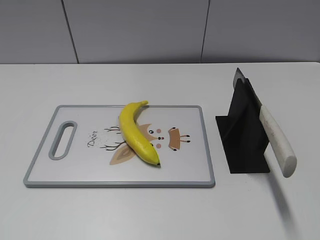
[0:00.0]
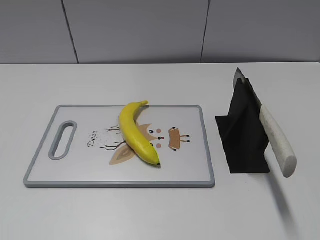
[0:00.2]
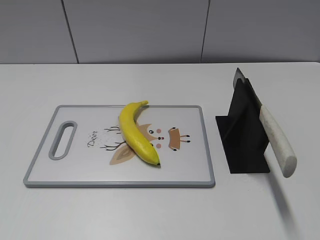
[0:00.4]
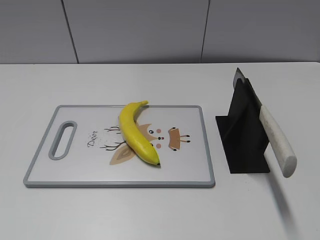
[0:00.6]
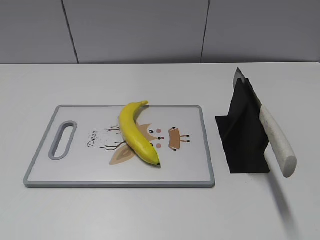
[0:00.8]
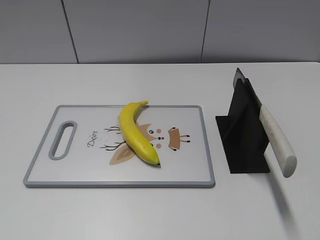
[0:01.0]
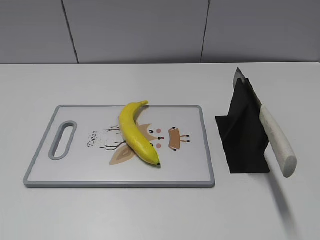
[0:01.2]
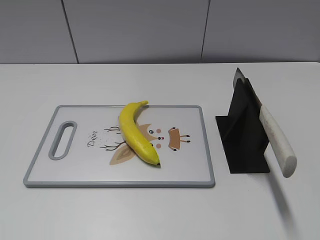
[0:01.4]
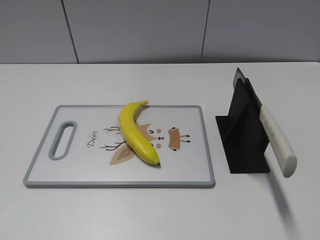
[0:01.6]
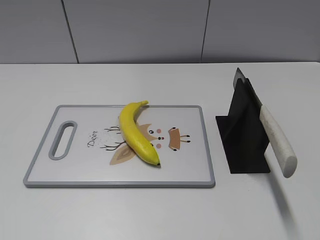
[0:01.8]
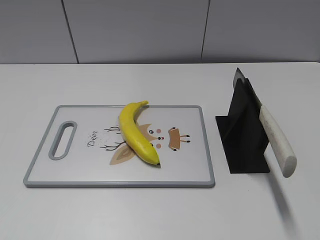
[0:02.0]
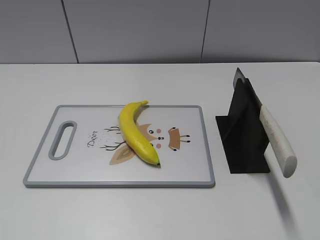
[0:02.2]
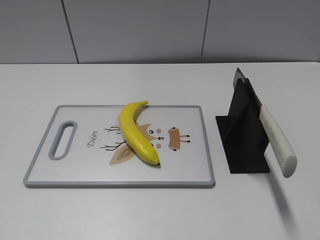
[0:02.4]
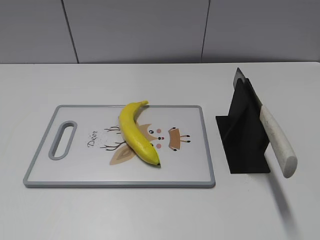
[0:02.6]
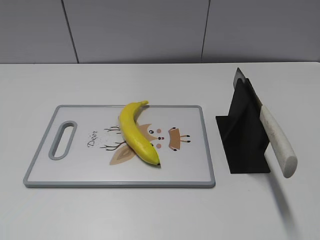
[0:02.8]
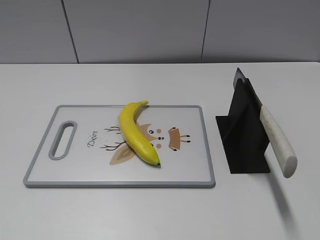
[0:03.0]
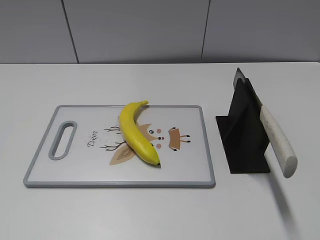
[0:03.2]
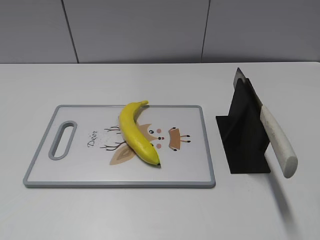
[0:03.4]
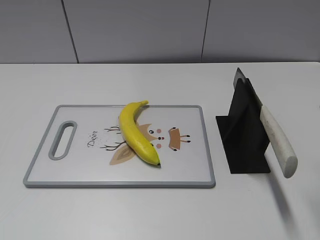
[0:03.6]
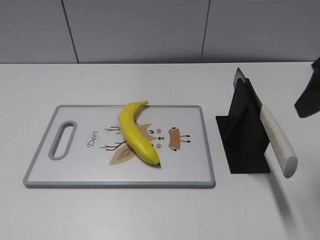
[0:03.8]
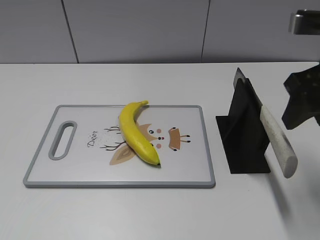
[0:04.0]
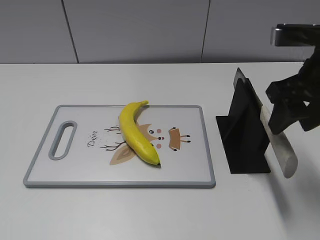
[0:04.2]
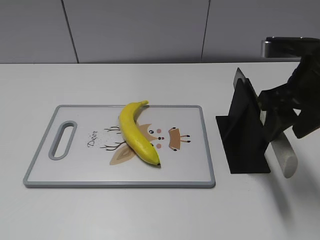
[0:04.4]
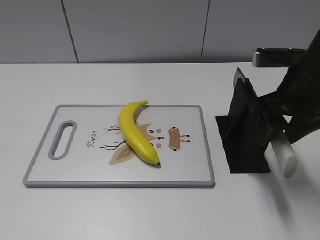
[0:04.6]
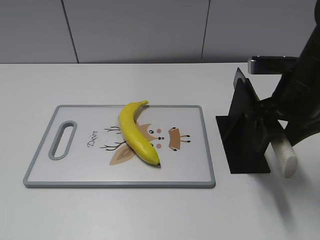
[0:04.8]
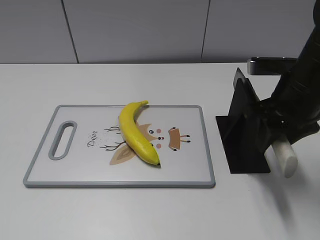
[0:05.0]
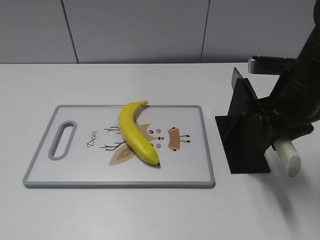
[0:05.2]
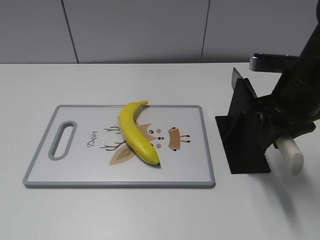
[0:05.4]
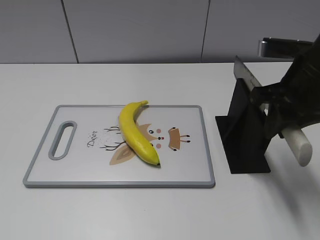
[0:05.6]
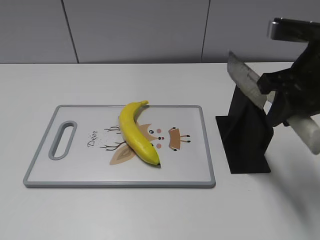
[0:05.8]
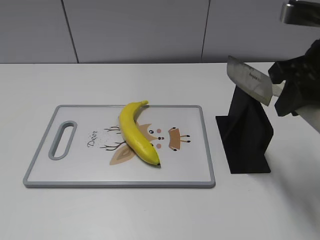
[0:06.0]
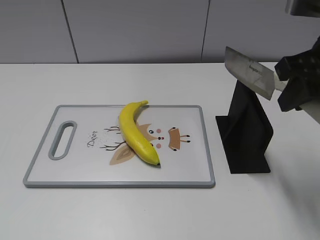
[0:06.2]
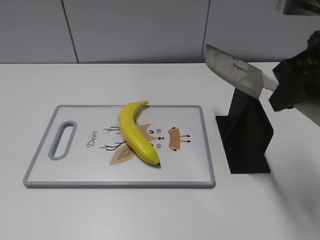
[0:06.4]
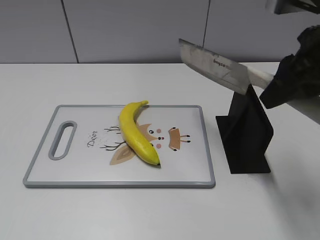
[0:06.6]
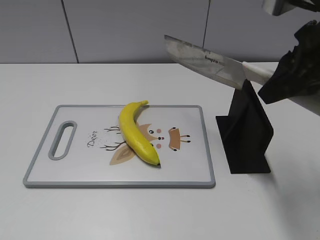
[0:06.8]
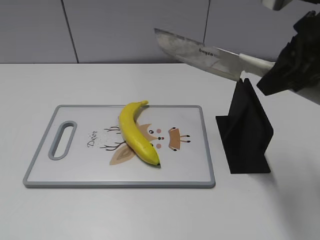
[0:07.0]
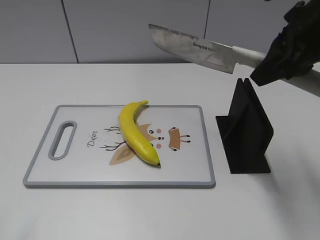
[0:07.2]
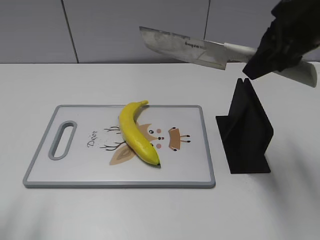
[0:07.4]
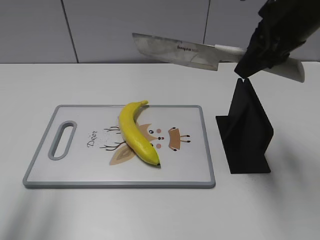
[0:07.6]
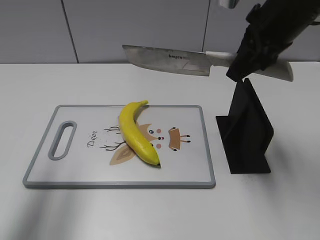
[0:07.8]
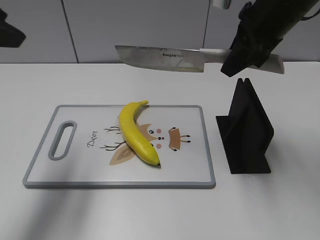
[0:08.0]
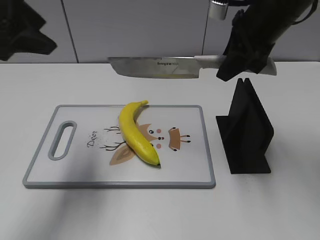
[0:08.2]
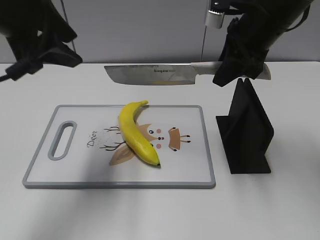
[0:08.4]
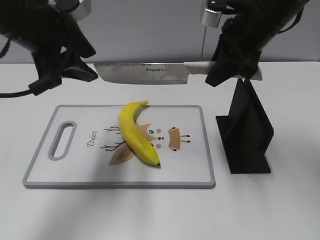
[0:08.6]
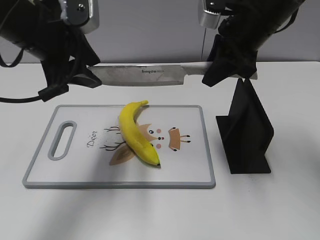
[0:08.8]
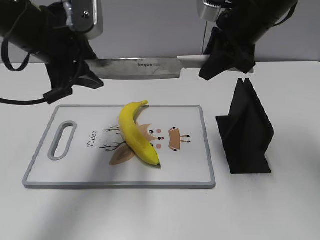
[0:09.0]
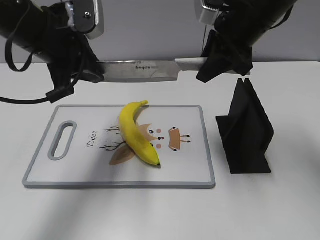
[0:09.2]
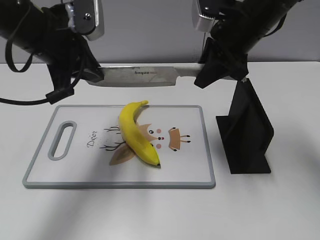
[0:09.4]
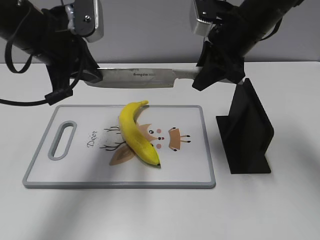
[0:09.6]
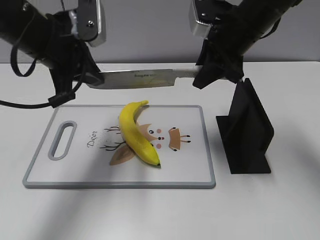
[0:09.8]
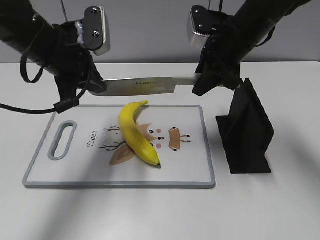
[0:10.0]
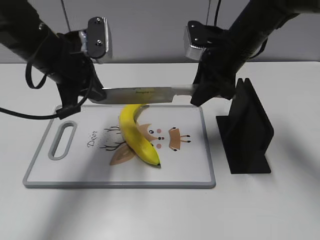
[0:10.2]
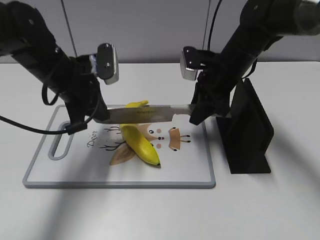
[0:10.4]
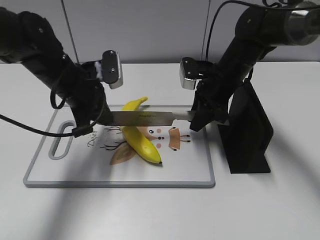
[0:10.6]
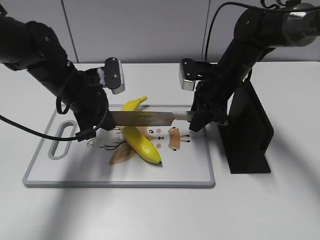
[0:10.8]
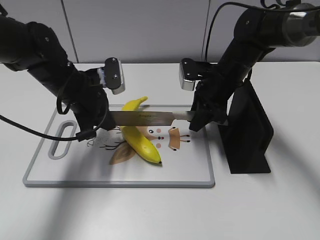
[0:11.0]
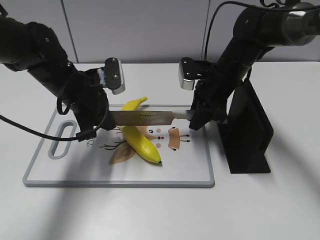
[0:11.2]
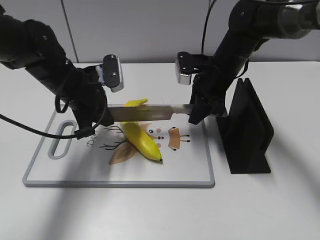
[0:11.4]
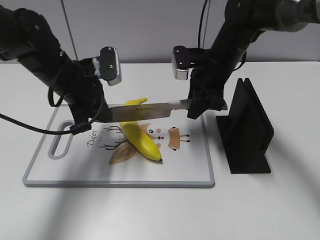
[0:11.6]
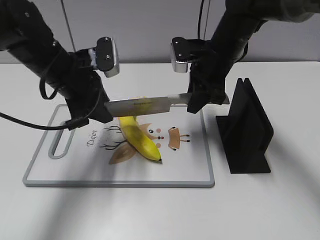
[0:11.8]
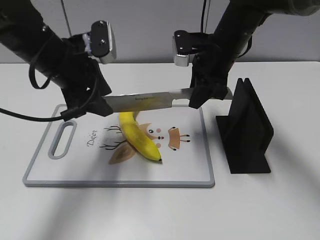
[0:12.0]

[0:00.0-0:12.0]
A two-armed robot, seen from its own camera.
Task of the whole recording: cut plastic banana.
Step, 0:00.0 to 0:06.2: Grab the knife handle with your right hand.
Step, 0:06.4 to 0:11.8: Lift the knife with your right hand.
0:03.0 to 0:04.4: The right gripper travels forward, downward and to the left by roughly 20 cm.
0:04.4 to 0:06.0: The right gripper closes up.
0:06.0 to 0:07.6: The right gripper travels forward by roughly 5 cm. The left gripper goes some 15 cm forward and upward.
0:07.6 to 0:09.0: The left gripper shifts some 20 cm forward, to the right and downward, while the right gripper is displaced forward by some 5 cm.
0:09.0 to 0:10.4: The grippers both shift downward by roughly 10 cm. The left gripper closes its fingers.
0:10.4 to 0:12.0: The left gripper opens.

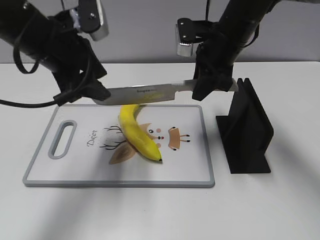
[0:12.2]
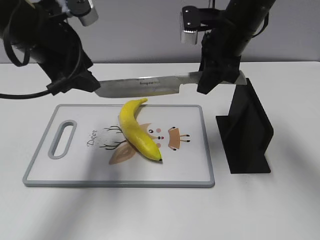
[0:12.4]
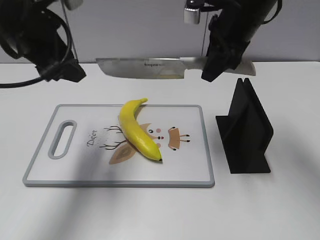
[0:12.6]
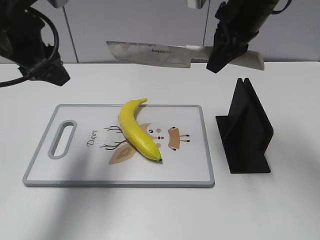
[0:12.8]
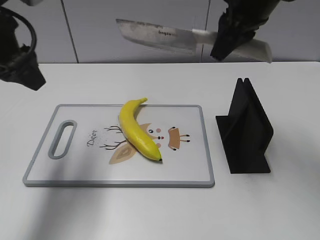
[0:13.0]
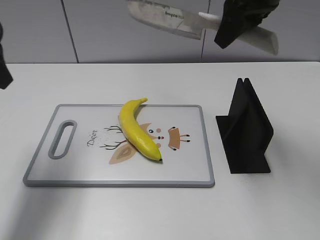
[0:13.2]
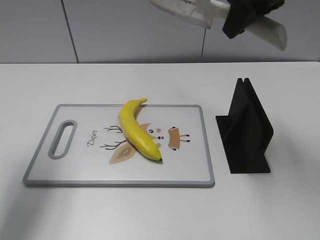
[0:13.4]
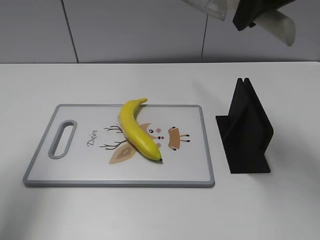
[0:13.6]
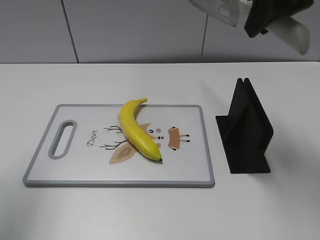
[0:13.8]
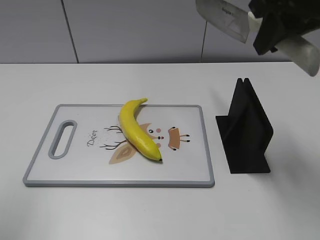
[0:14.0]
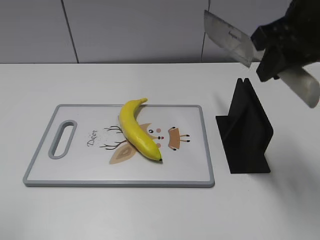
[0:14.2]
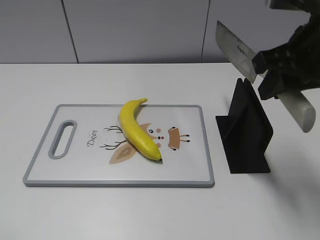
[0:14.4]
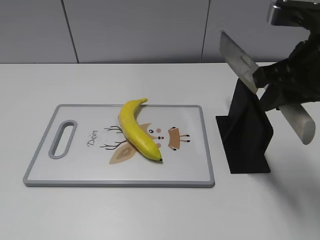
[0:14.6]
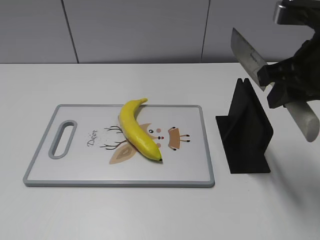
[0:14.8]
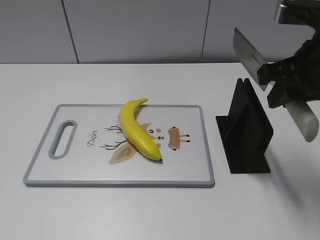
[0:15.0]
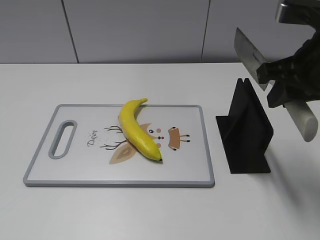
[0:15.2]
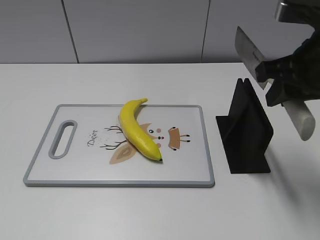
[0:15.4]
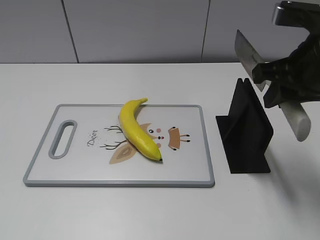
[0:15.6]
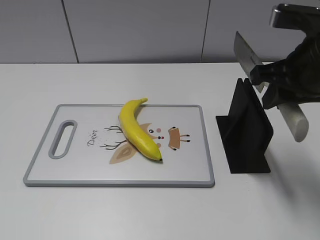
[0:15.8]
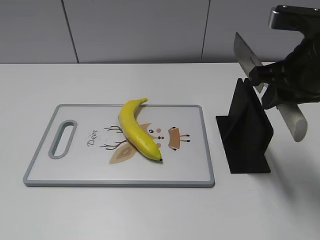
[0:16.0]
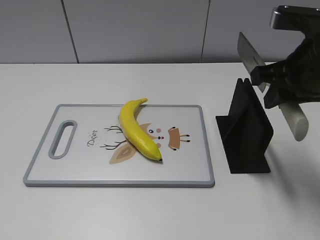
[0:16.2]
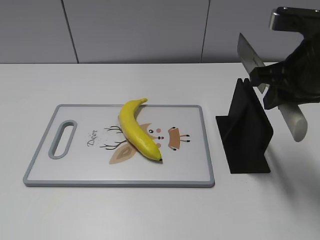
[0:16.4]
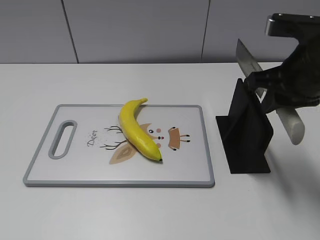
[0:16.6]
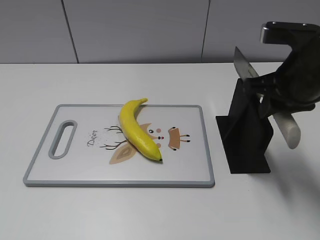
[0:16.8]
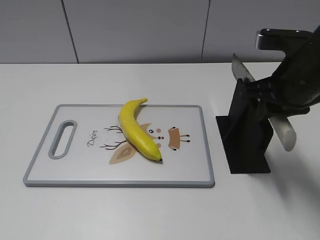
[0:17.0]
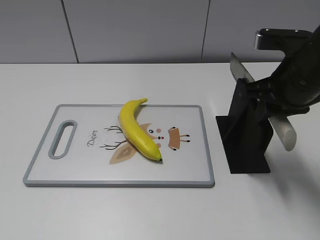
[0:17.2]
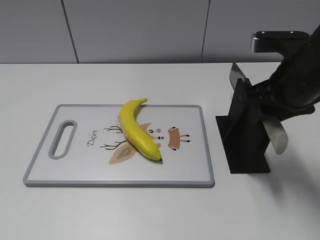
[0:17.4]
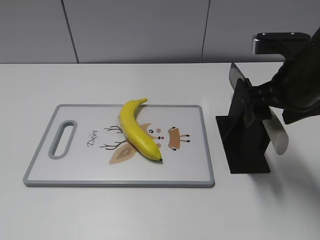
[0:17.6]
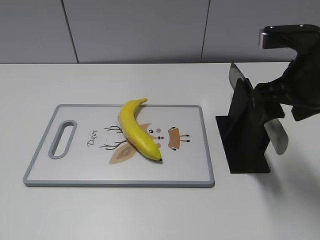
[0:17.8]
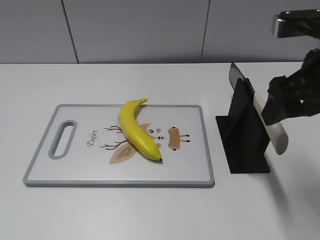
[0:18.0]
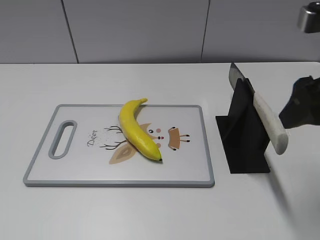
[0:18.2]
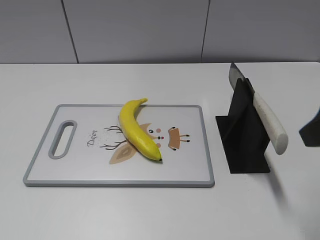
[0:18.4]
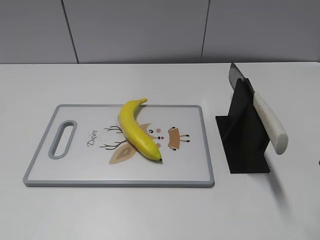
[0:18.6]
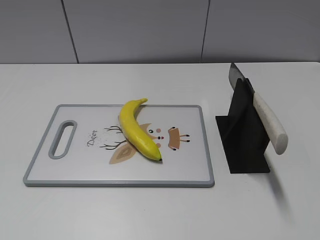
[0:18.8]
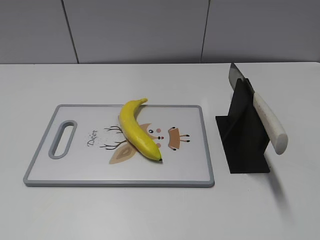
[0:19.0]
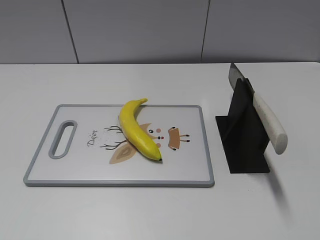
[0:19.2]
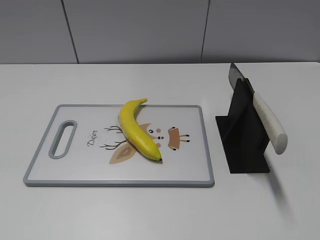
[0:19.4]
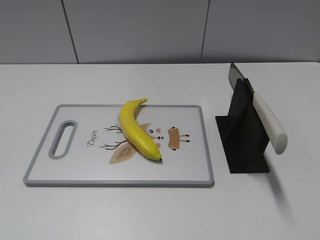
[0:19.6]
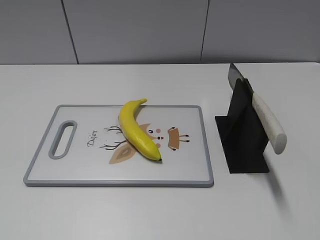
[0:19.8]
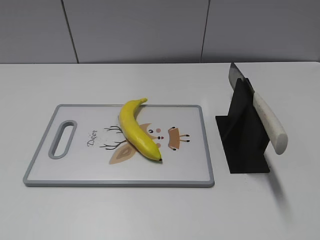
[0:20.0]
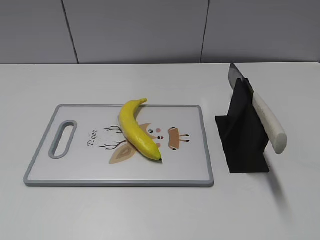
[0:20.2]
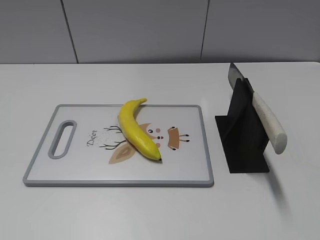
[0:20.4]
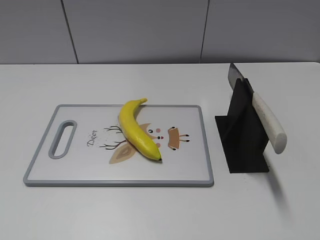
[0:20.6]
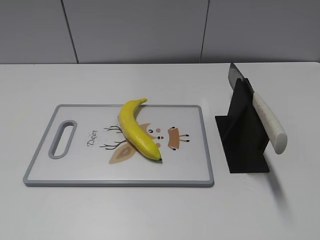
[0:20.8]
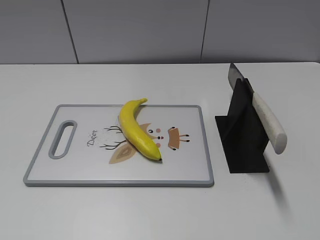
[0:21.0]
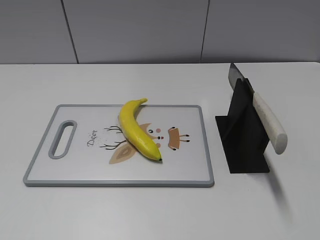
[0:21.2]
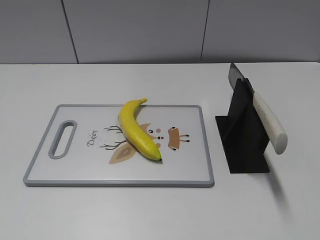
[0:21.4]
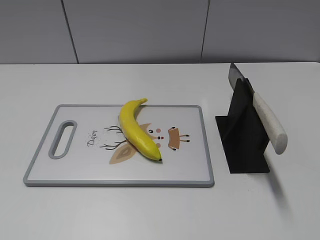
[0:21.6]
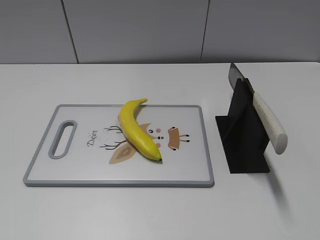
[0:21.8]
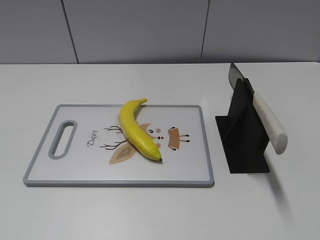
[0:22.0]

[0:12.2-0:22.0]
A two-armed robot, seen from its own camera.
Task of the whole recording: cut plastic banana.
Step, 0:12.2 to 0:13.6: Cut the banana with your right hand.
Step, 0:13.8 to 0:14.8: Secure the blade with your left hand.
Step, 0:15.0 to 0:21.6: Place the knife on the storage rack with your right hand.
0:12.2 to 0:13.6: The left gripper goes approximately 20 cm to the left, upward and backward, while the right gripper travels upward and backward by some 15 cm.
0:13.6 to 0:15.0: The right gripper shifts roughly 10 cm downward and backward, while the left gripper goes some 25 cm backward.
0:15.0 to 0:16.4: The grippers move only a little.
0:16.4 to 0:17.8: The right gripper opens its fingers.
0:17.8 to 0:19.2: The right gripper moves backward, about 20 cm.
